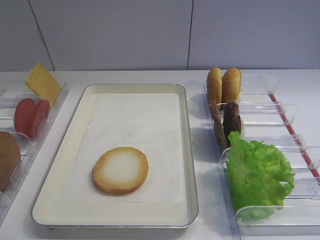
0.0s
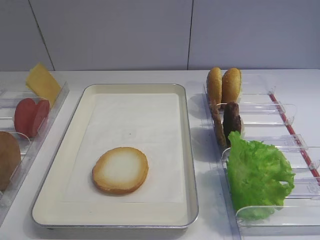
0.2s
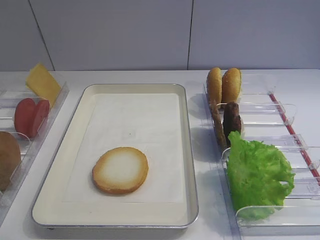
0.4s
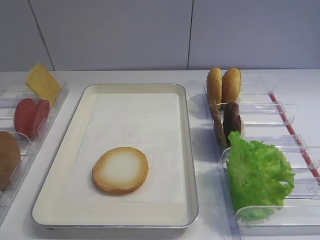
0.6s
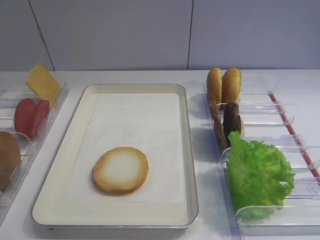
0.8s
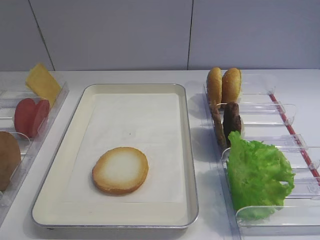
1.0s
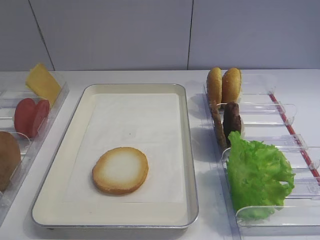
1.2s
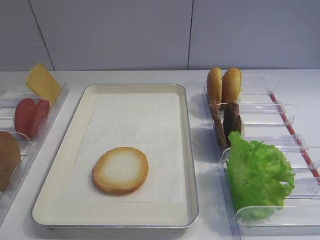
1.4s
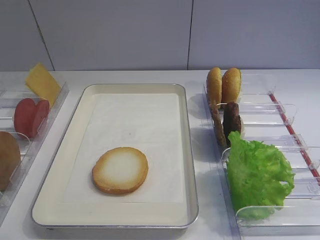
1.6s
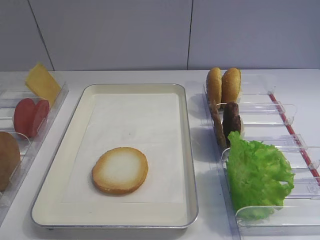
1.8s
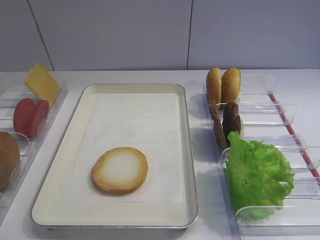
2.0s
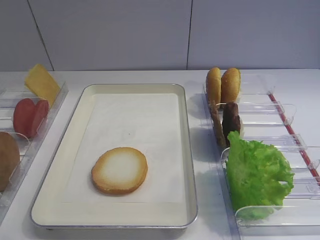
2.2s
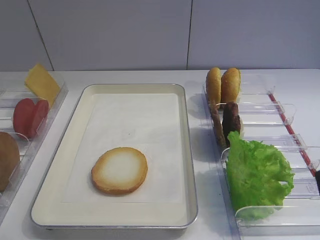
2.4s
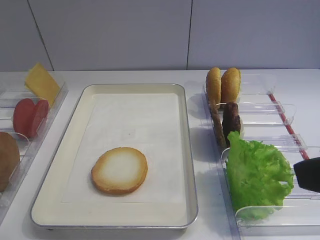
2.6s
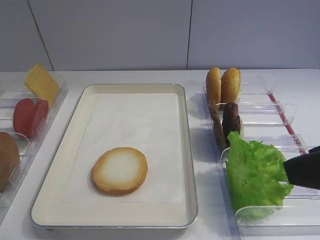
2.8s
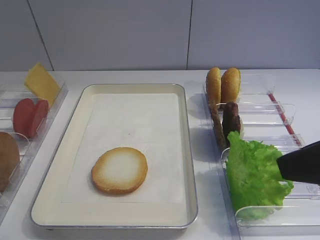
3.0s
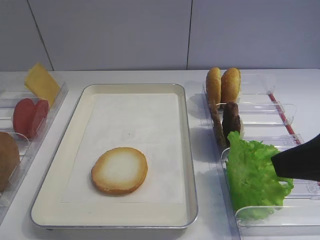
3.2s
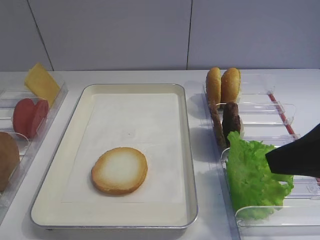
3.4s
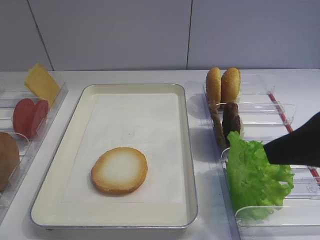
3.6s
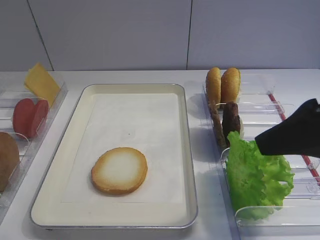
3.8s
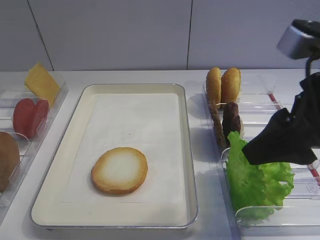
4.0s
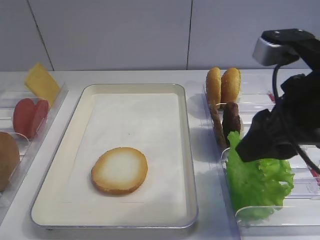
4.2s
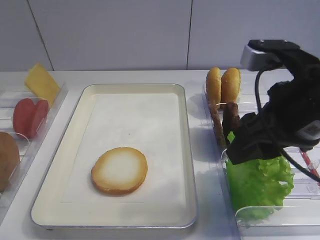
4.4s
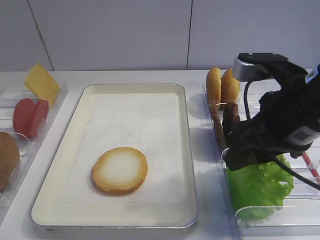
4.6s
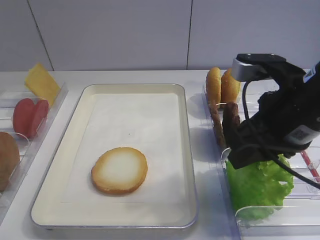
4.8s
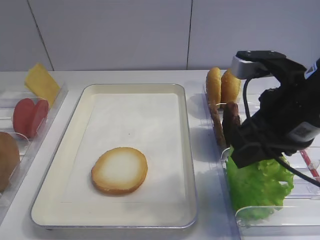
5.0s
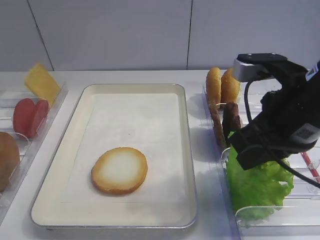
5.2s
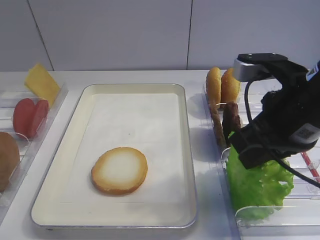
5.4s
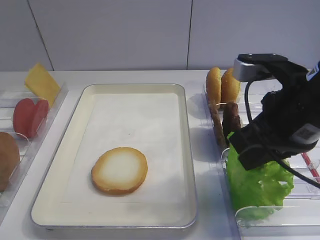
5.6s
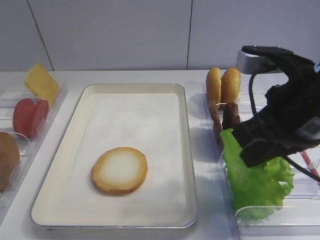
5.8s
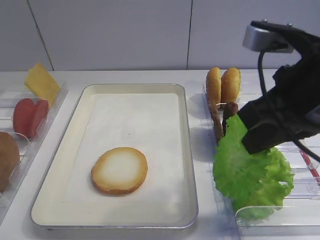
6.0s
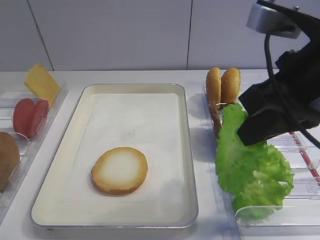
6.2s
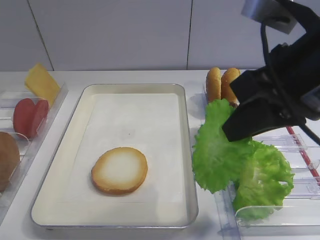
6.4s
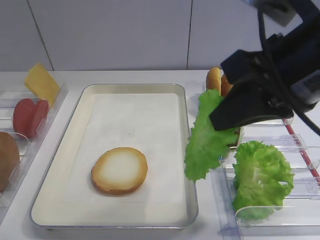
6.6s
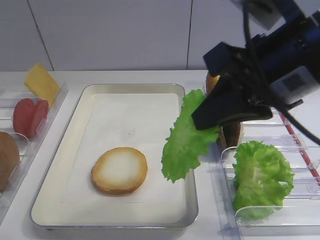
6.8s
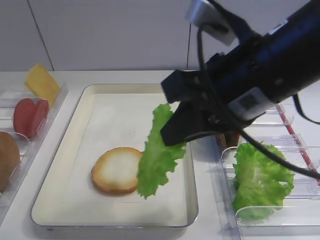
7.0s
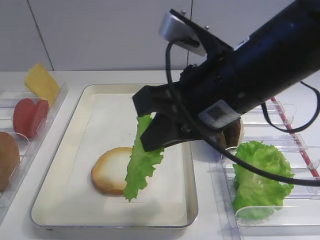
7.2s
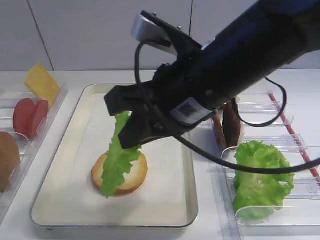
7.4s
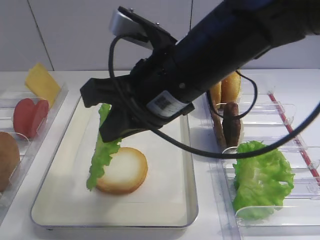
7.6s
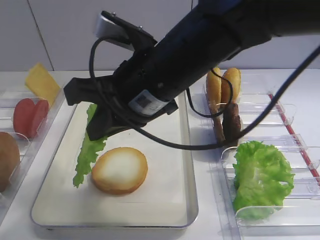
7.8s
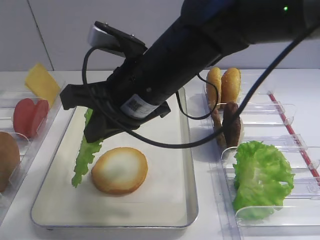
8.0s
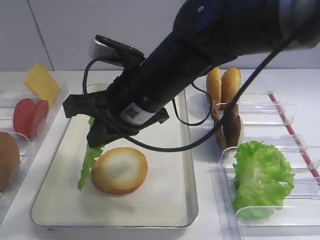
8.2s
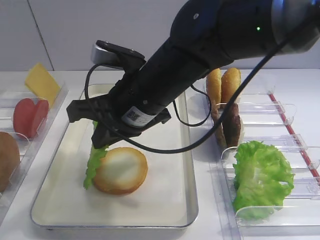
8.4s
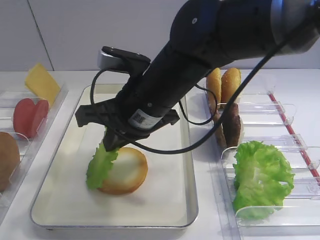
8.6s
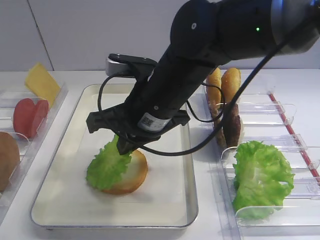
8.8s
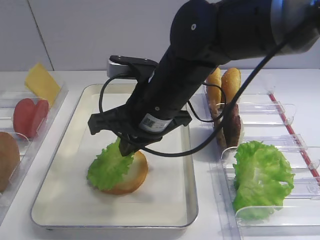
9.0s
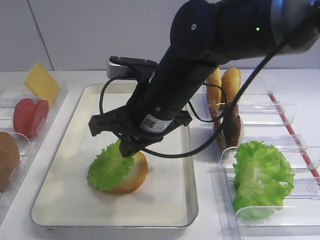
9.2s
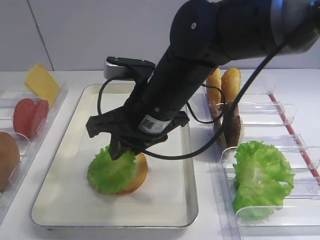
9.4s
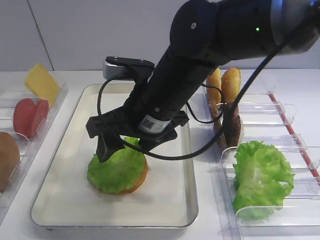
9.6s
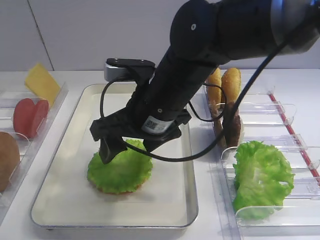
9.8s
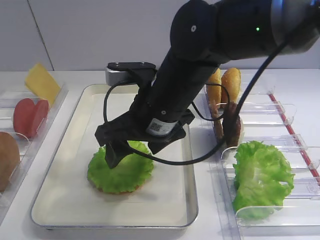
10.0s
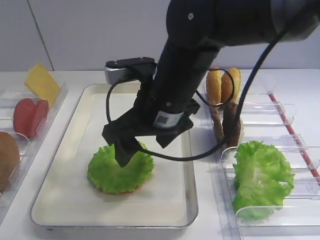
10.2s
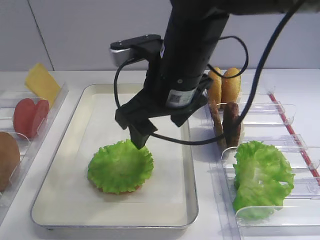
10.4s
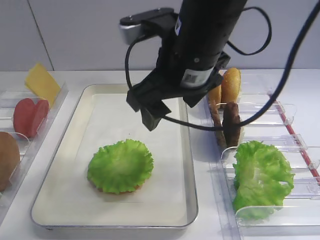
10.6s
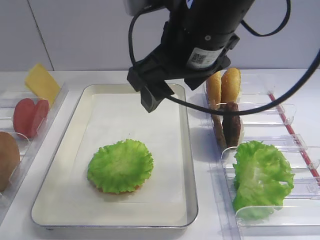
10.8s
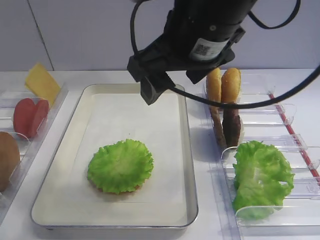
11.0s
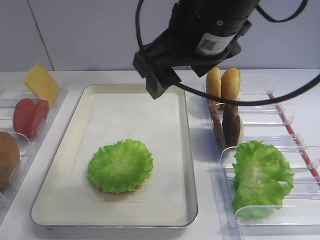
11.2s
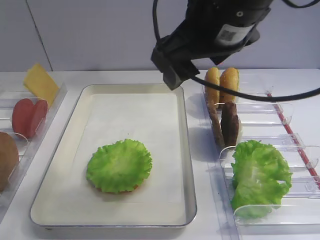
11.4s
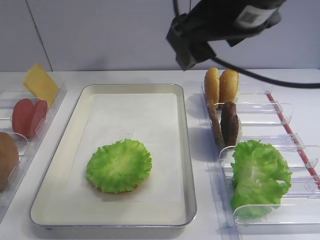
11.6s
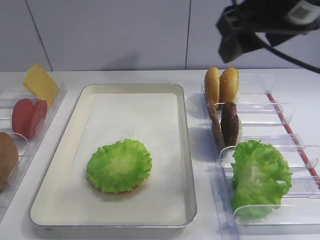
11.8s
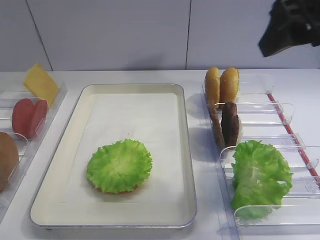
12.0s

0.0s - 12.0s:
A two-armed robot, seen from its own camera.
Step, 0.0s - 5.8s: Pick up the lettuce leaf with the right gripper.
Step, 6.2s - 10.2s: Place the lettuce leaf on the bread slice with the right gripper.
1.6s - 3.0s: The right gripper is displaced forward by some 10 cm.
3.0s - 4.4s: The right gripper goes roughly 10 cm forward and to the left.
4.4s - 6.0s: The right gripper closes its fingers.
6.0s - 7.6s: The right gripper shifts approximately 15 cm to the left.
7.6s - 9.0s: The right gripper travels downward by approximately 5 cm.
9.0s - 10.4s: The right gripper opens.
10.4s - 12.0s: The right gripper shifts some 20 cm to the right and upward.

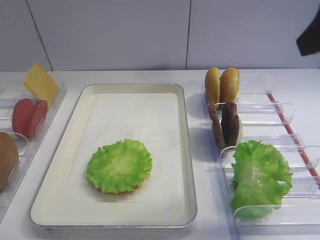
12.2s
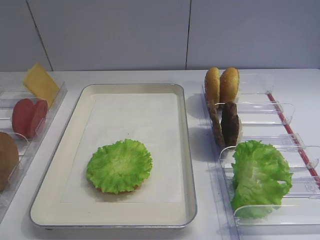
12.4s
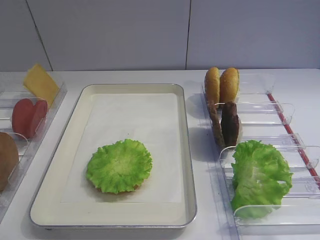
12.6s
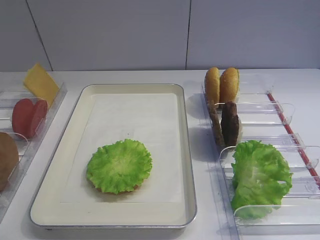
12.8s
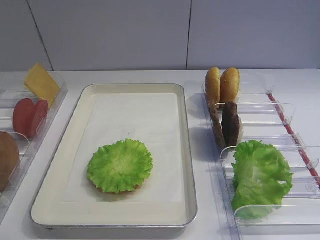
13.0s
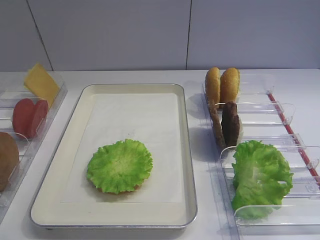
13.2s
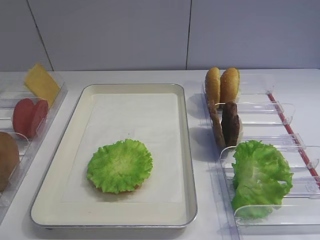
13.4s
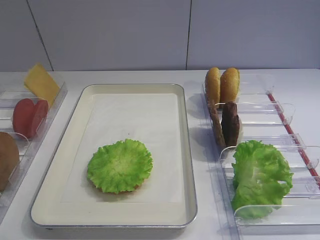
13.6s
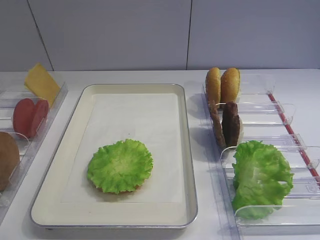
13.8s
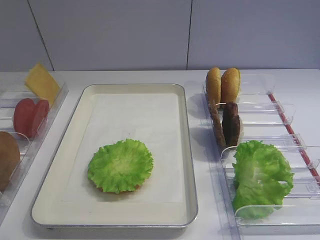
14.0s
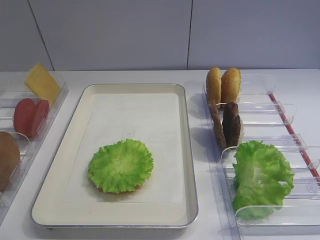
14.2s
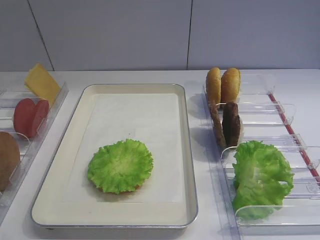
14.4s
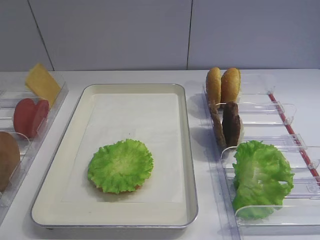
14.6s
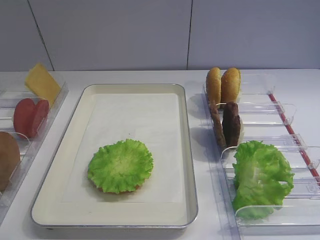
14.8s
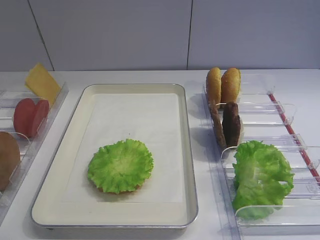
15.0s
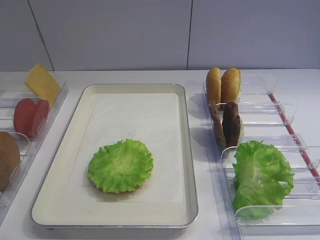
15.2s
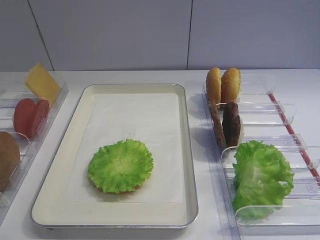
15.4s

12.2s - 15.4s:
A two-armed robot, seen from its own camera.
12.2s - 13.8s: The right gripper is displaced backward and downward by about 25 cm.
13.8s - 15.4s: Both grippers stay about where they are.

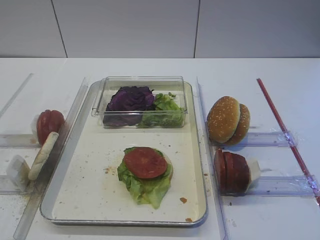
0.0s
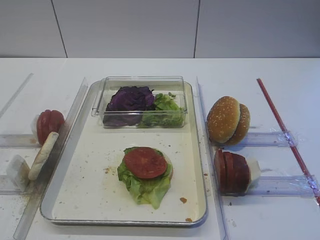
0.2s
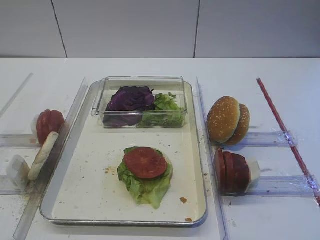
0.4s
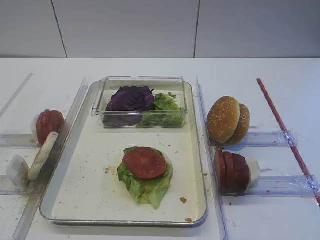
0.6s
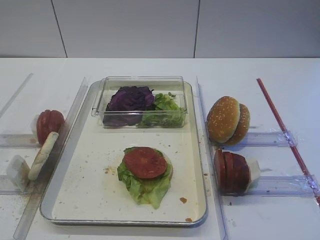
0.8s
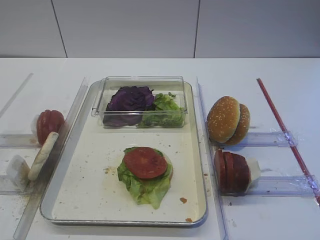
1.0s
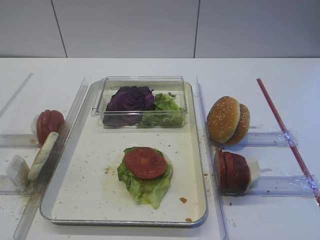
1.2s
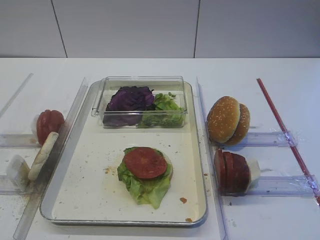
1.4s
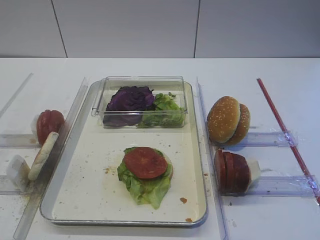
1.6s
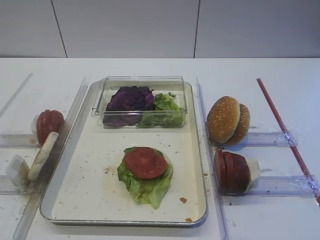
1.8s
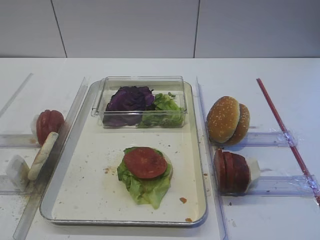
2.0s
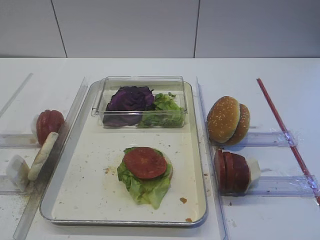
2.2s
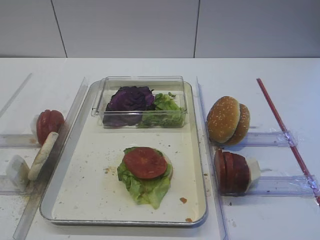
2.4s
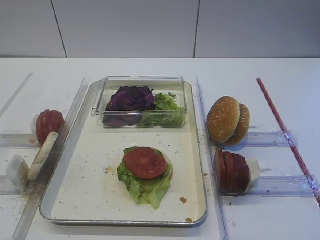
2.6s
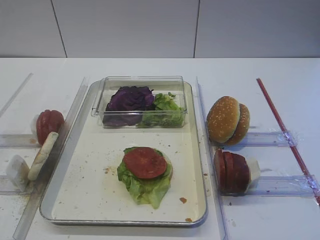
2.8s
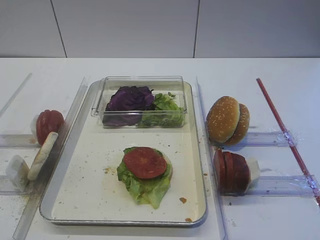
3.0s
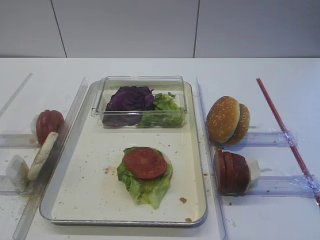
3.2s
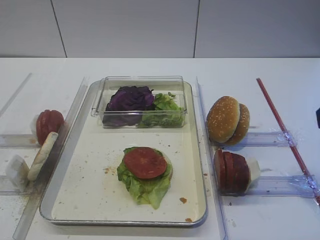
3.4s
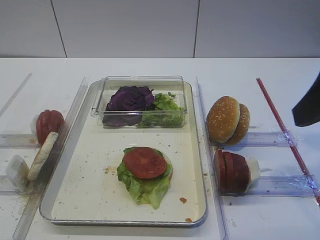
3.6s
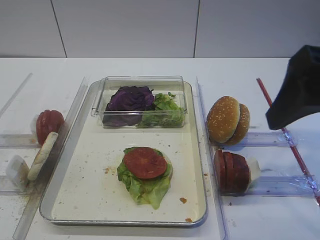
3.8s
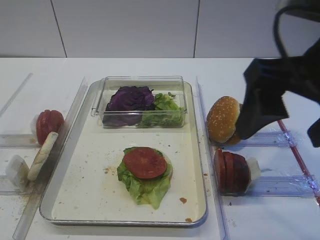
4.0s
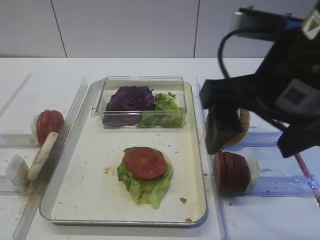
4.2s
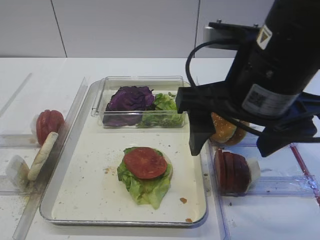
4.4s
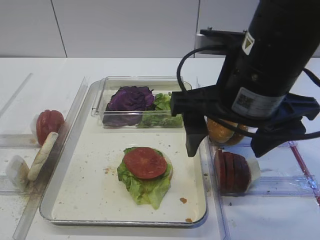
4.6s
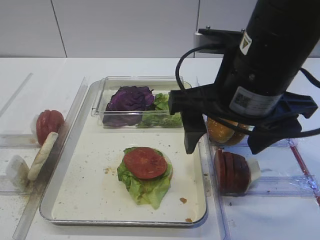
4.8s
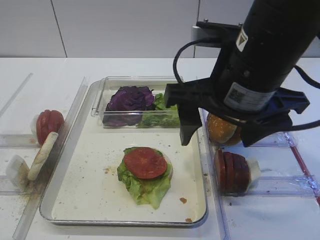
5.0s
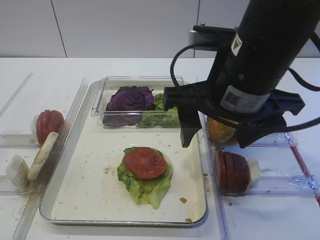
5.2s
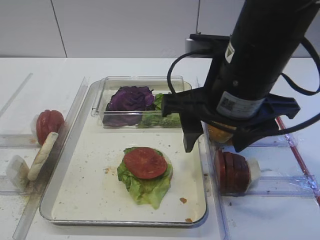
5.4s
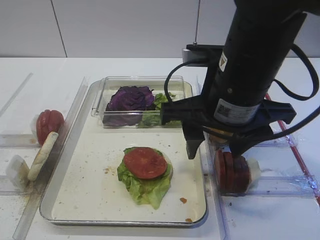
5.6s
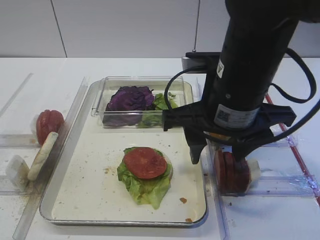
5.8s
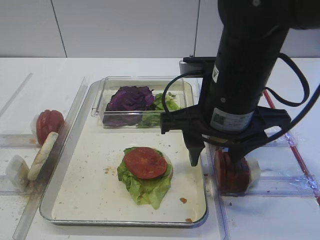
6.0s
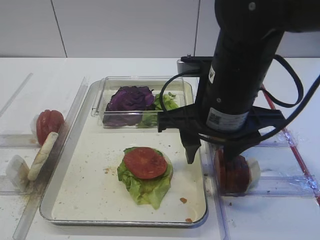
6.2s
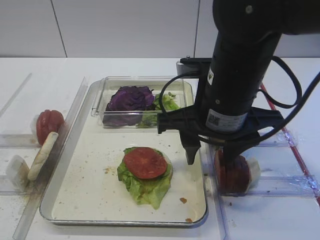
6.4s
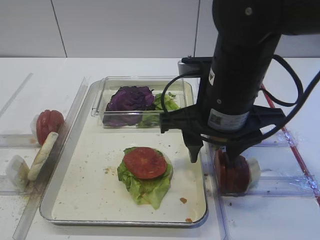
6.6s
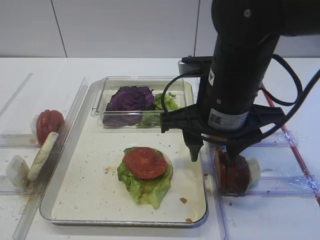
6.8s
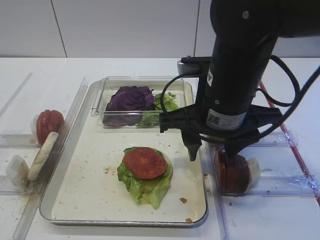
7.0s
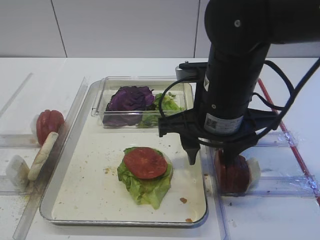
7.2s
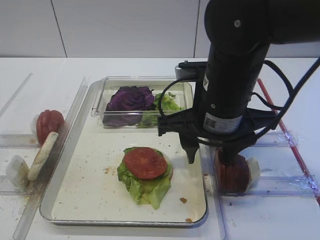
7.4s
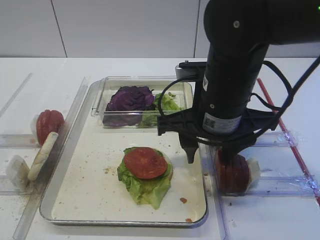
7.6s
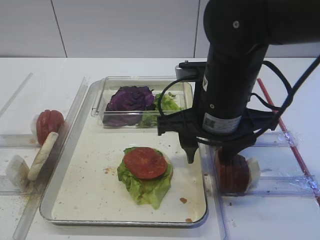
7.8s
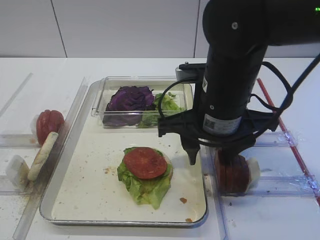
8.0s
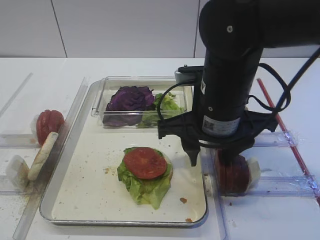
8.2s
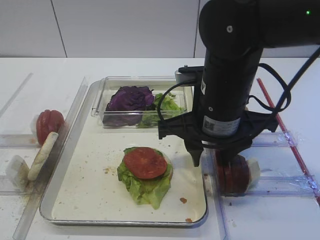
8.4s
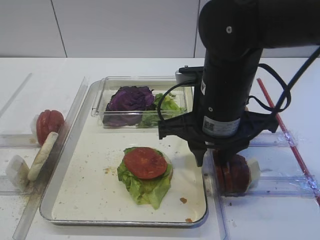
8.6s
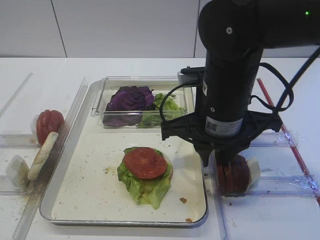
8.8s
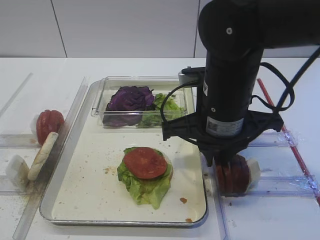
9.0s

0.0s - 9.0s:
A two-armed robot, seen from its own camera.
3.0s - 4.4s: The right gripper travels to the left and forward by about 20 cm.
4.4s - 6.0s: The right gripper goes roughly 5 cm downward.
6.0s - 7.6s: The grippers move only a little.
7.6s - 9.0s: The right gripper closes.
